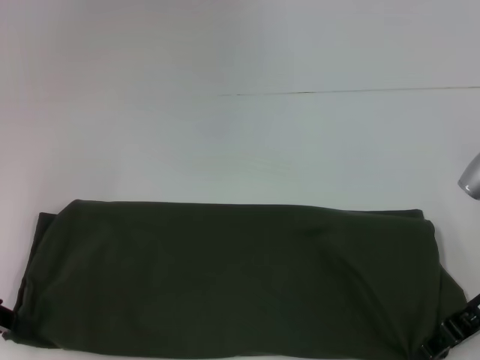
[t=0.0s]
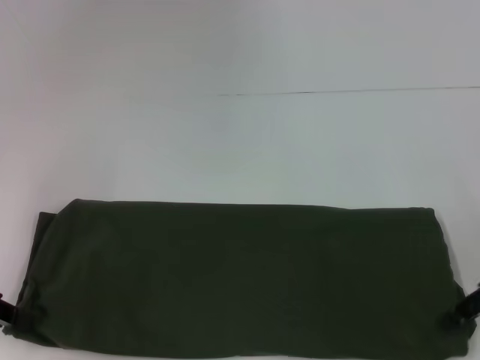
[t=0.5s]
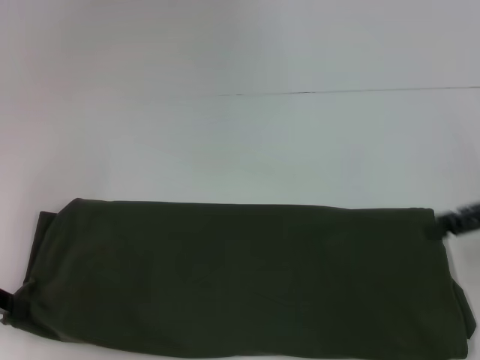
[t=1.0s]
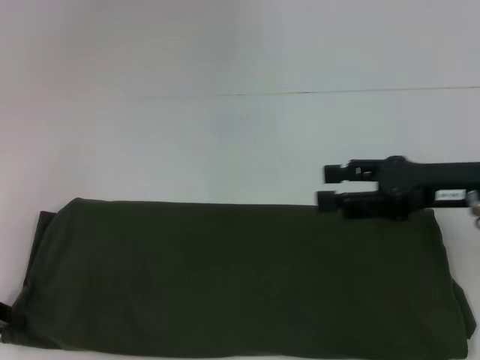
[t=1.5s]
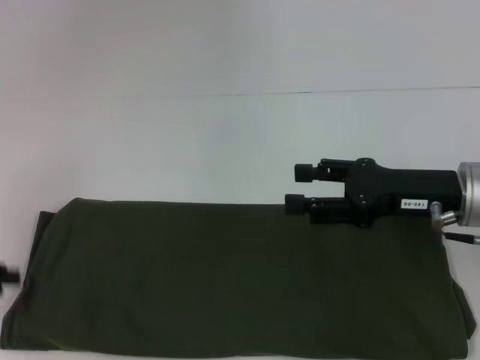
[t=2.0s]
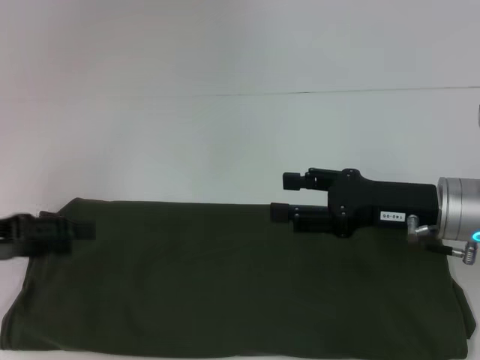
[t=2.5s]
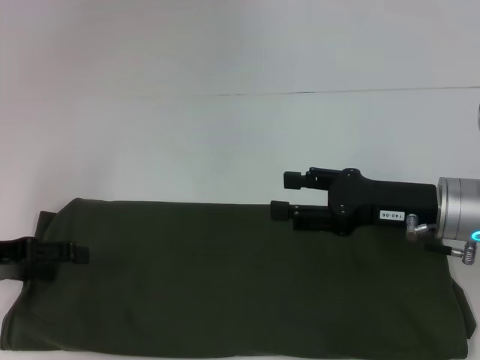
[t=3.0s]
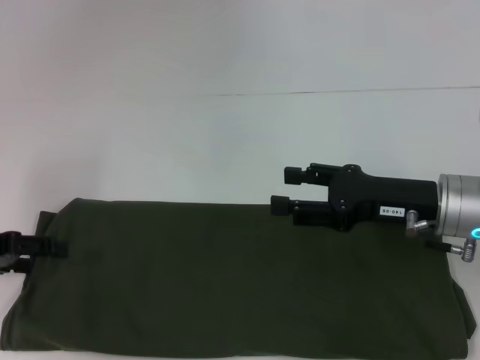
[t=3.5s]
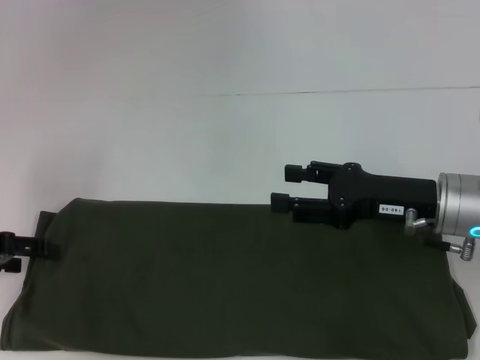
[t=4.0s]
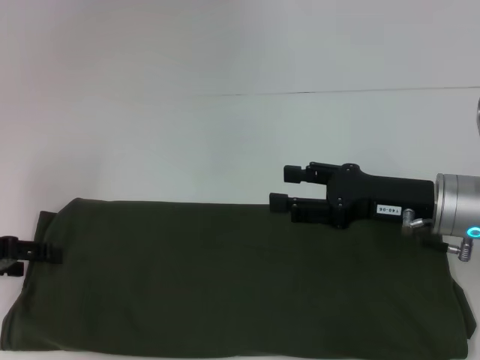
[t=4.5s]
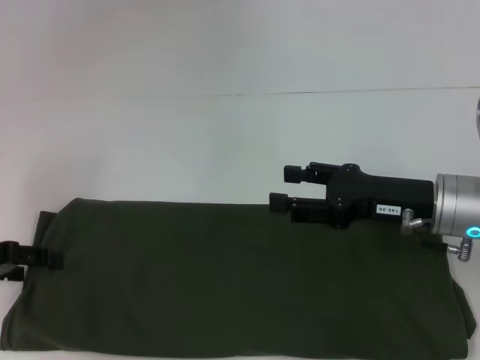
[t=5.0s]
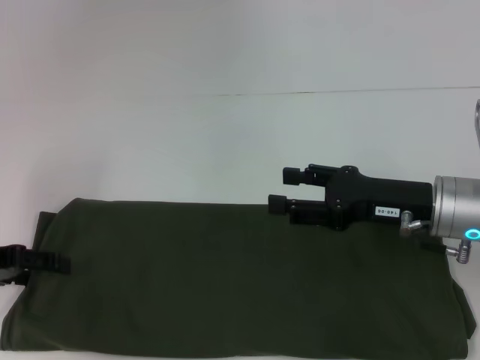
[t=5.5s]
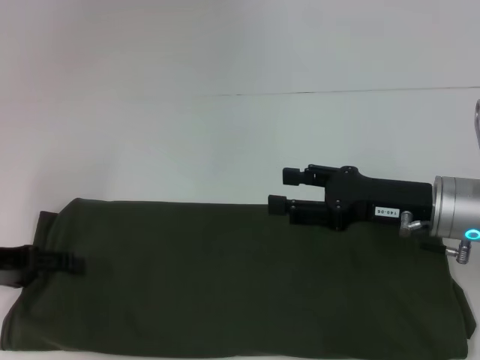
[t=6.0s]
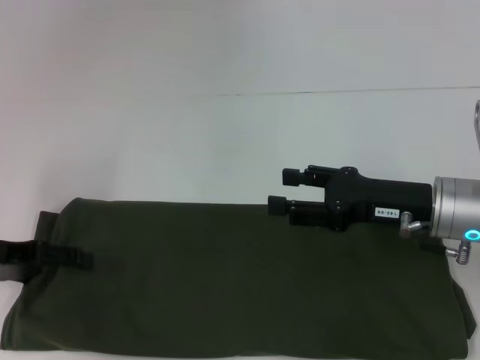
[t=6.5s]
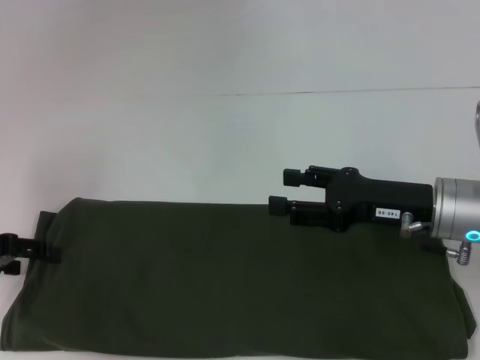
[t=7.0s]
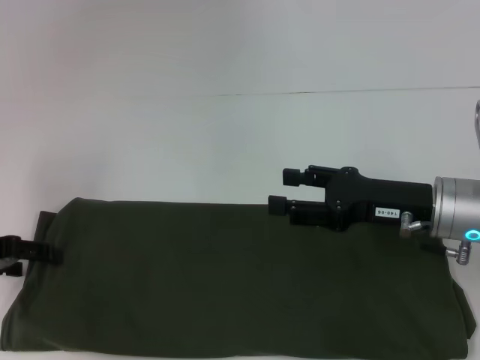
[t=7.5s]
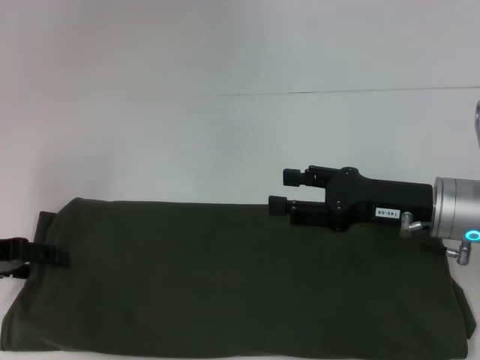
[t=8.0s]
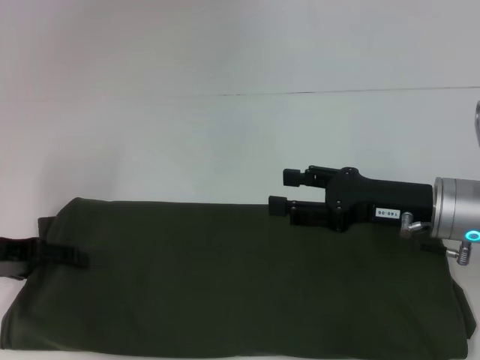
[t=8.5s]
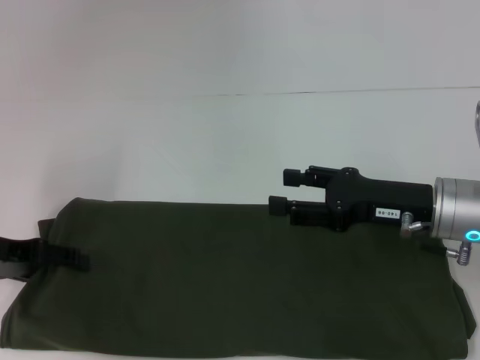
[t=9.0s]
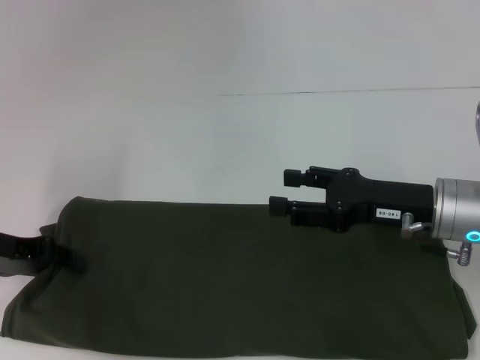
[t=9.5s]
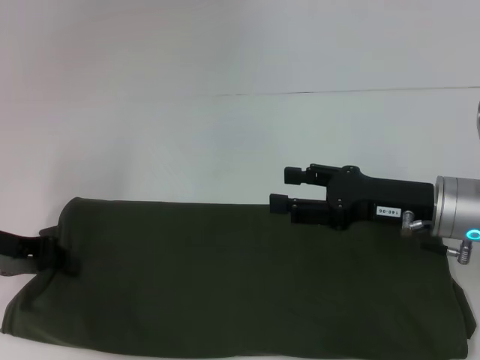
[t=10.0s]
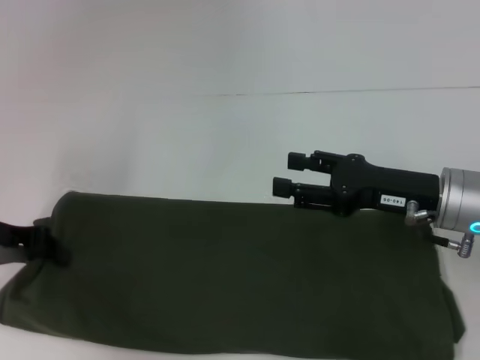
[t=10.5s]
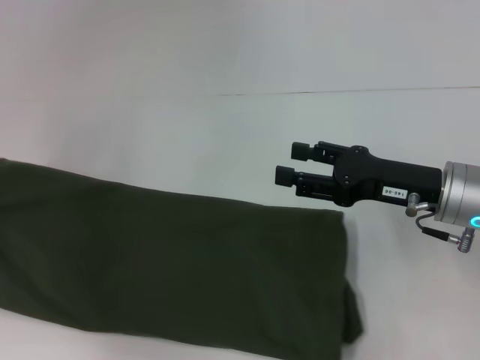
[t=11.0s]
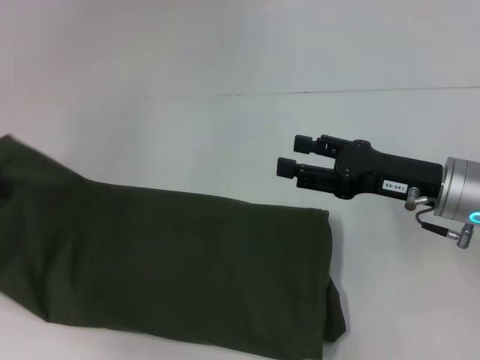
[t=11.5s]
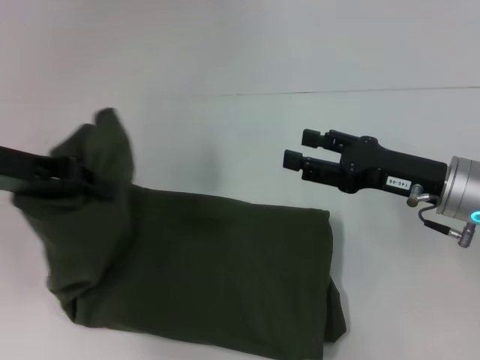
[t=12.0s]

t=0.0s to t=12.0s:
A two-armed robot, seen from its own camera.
t=0.0s to t=2.0s: The right gripper opens up.
t=2.0s to t=4.0s: The left gripper changes place by about 5 cm, and opens.
t=4.0s to t=8.0s: The grippers stay close to where they were, moving slightly.
t=8.0s to t=10.0s: The left gripper closes its fingers.
t=10.0s to t=12.0s: The left gripper heads upward, covering roughly 10 cm.

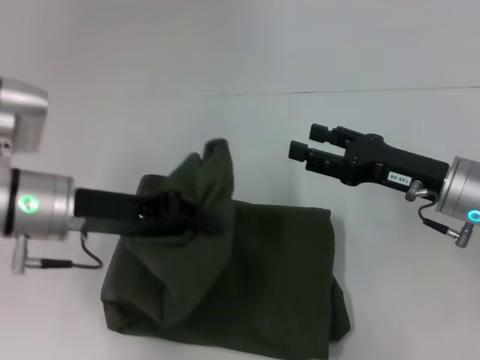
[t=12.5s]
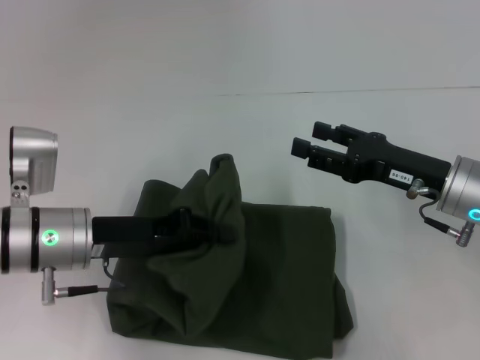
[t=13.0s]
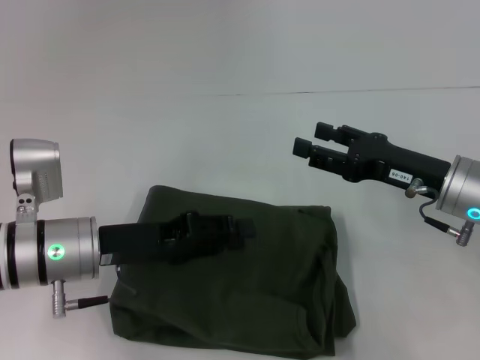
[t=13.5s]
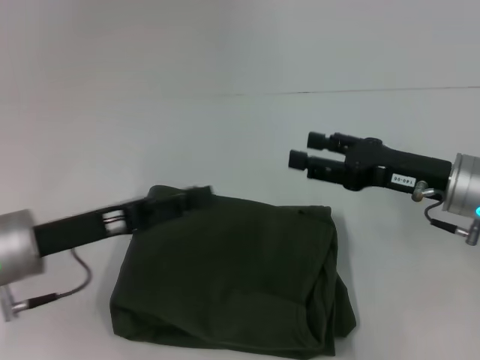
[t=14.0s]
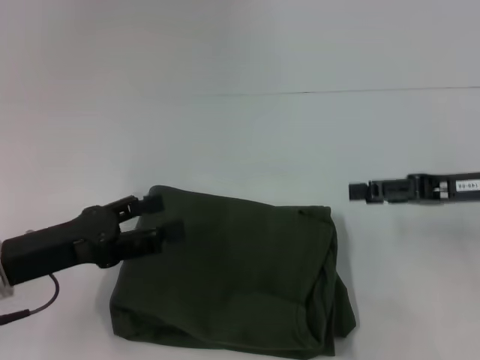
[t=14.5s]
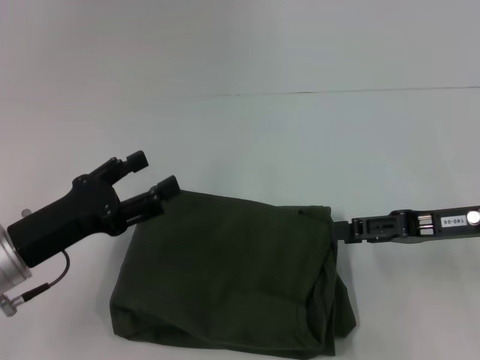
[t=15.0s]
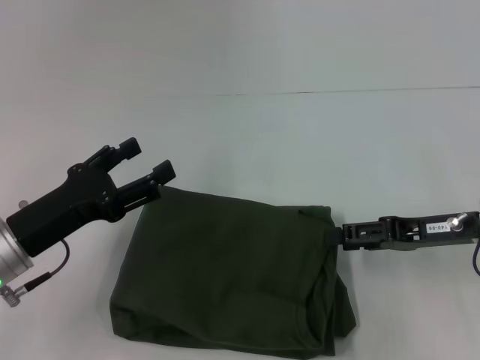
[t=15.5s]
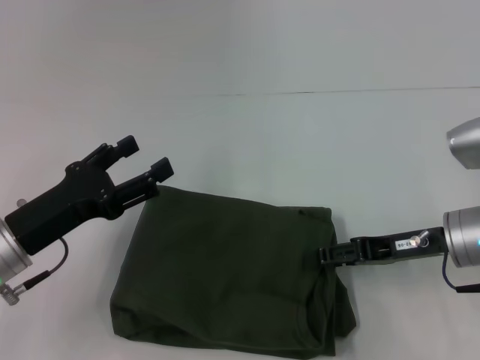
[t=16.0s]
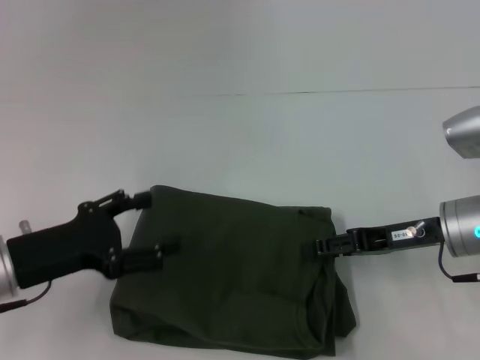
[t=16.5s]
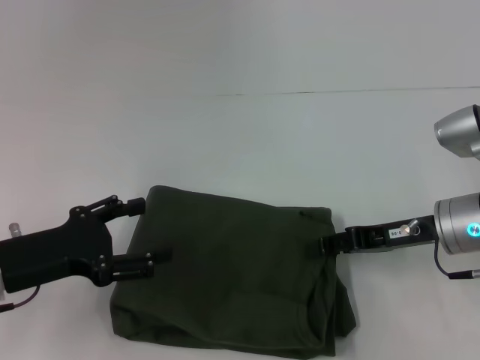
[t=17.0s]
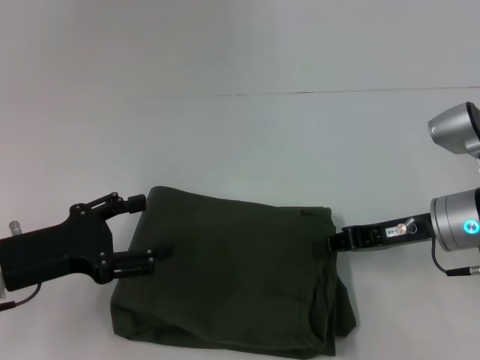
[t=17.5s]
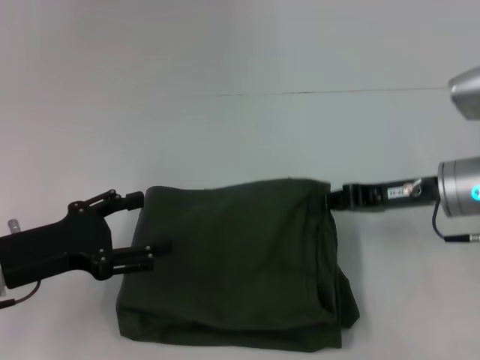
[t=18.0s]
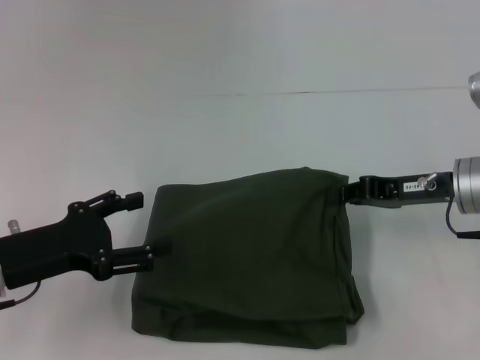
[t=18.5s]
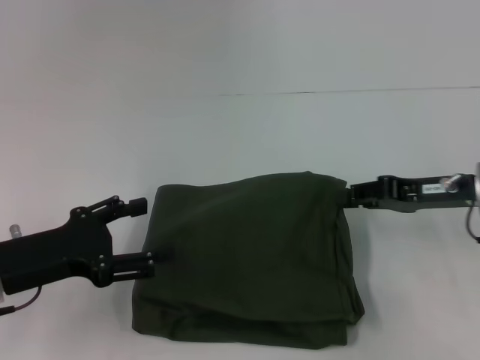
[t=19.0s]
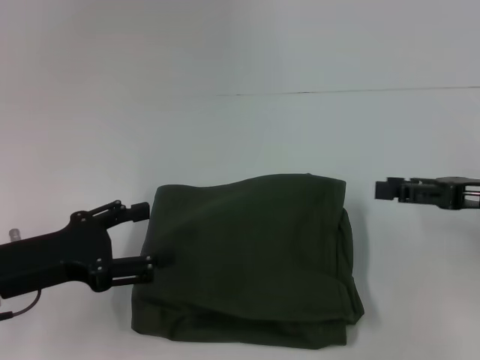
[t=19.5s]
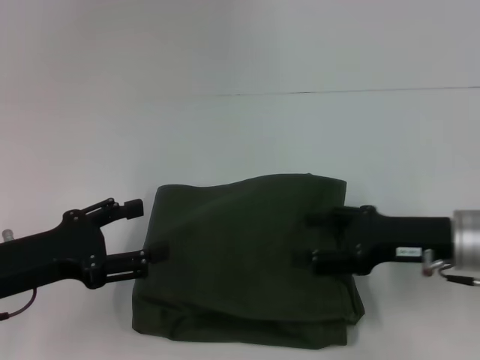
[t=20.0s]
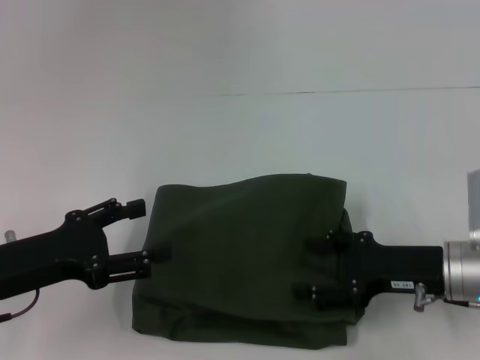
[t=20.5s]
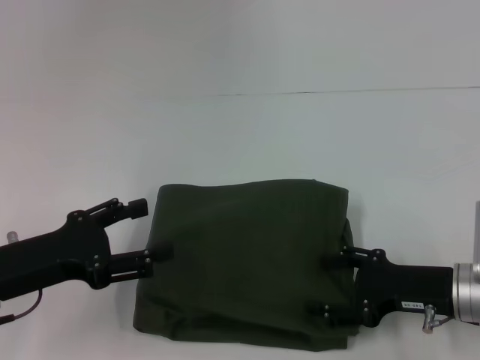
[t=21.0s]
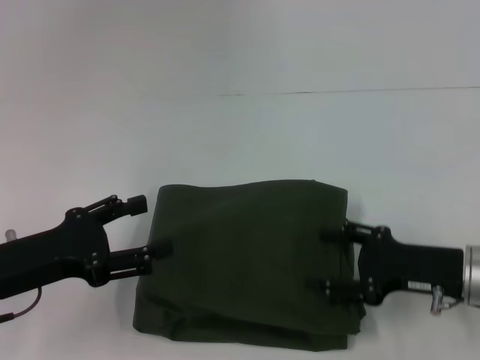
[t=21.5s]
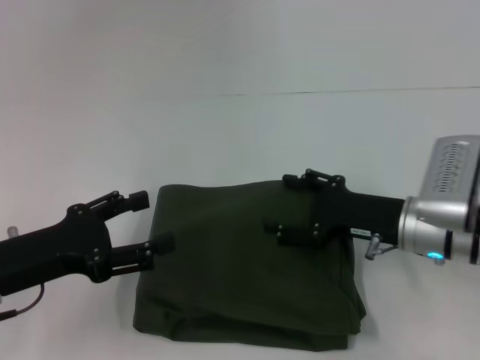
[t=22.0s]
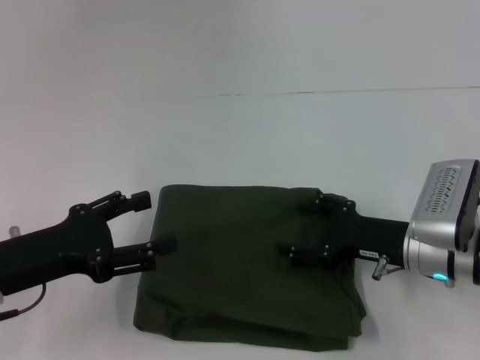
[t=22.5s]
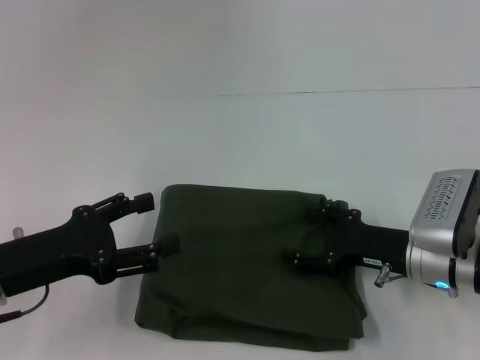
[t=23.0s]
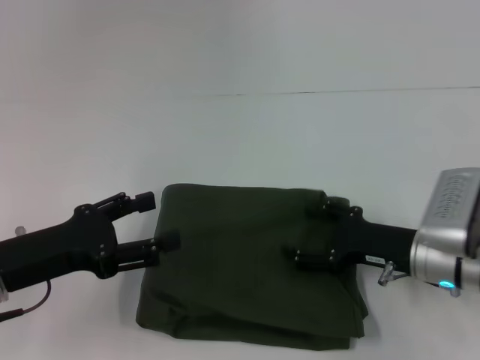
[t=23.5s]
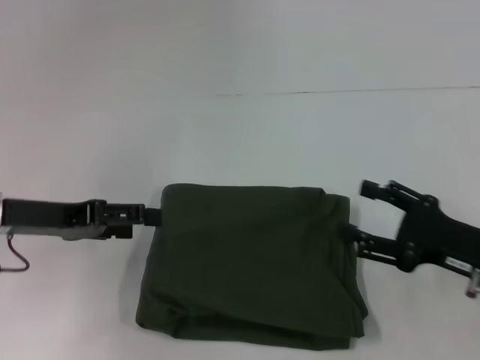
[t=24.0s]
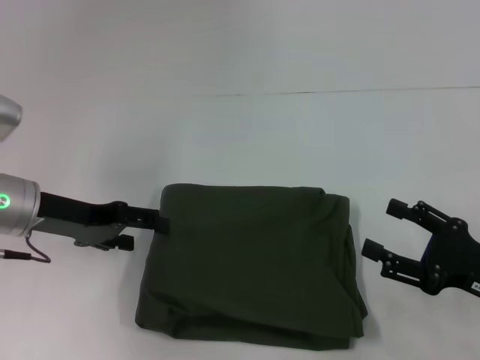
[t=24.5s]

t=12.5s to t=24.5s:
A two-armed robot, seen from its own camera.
t=12.5s to t=14.5s: The left gripper goes some 10 cm backward and to the left, and opens up; the right gripper heads to the right, covering about 5 cm.
t=14.5s to t=16.5s: The right gripper goes roughly 5 cm to the left.
t=16.5s to t=18.5s: The right gripper closes.
t=18.5s to t=20.5s: The right gripper travels backward by about 5 cm, goes to the right and returns, some 5 cm each way, and opens its fingers.
t=20.5s to t=22.5s: There are only small adjustments of the grippers.
t=22.5s to t=24.5s: The right gripper shifts some 10 cm backward and to the right. The left gripper travels forward by some 10 cm.

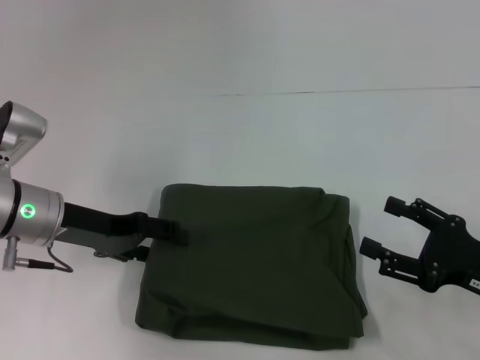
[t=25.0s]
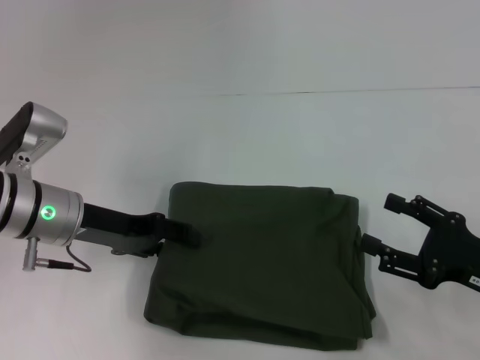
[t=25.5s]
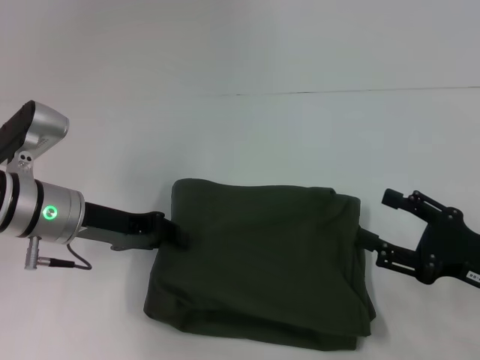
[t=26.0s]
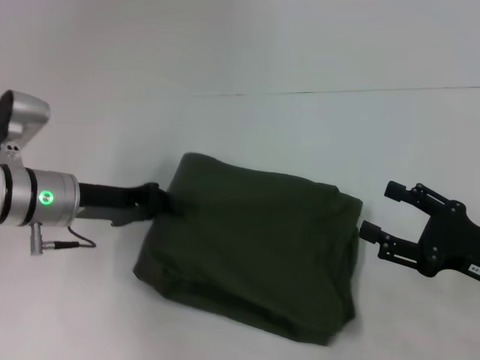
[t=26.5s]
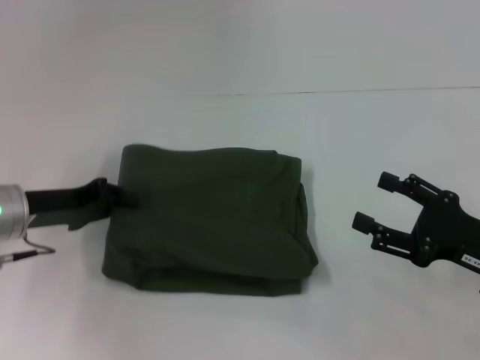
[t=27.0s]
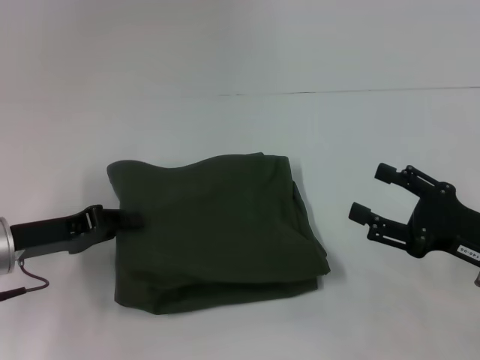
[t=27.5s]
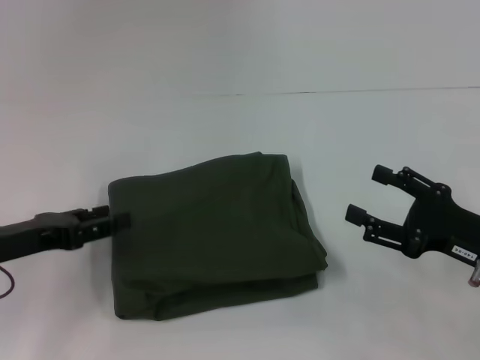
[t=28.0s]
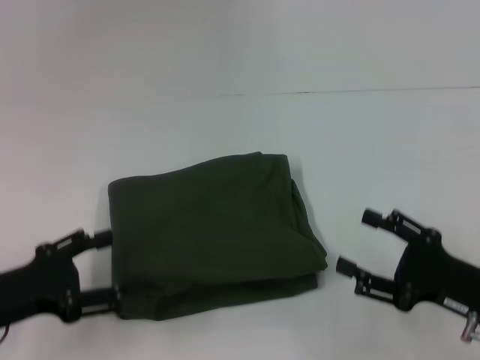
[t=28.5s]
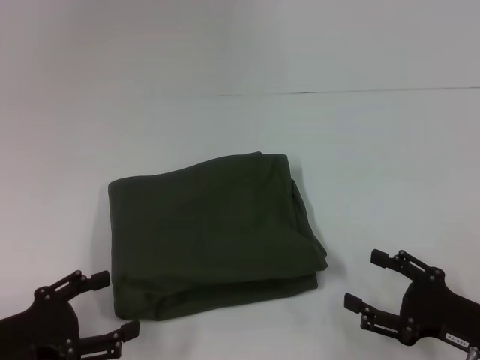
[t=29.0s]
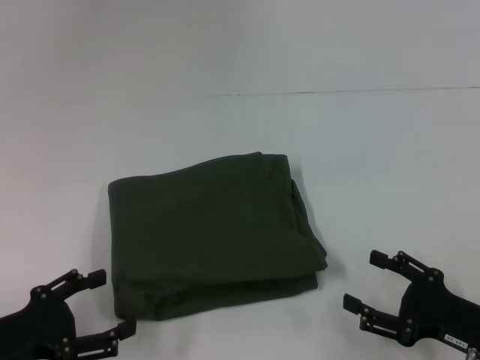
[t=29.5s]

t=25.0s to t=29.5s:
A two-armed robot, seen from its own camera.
t=25.0s to t=27.0s: The left gripper closes.
t=27.0s to t=29.5s: The right gripper goes approximately 5 cm downward and backward; the left gripper heads backward, covering about 15 cm, and opens.
